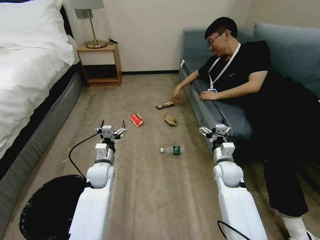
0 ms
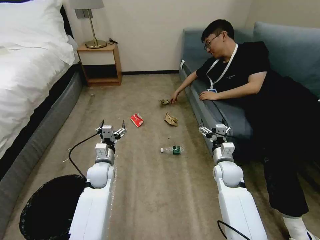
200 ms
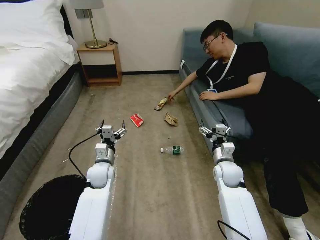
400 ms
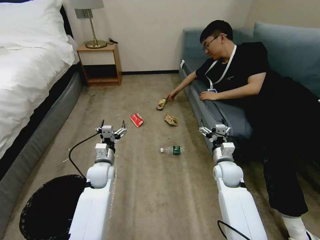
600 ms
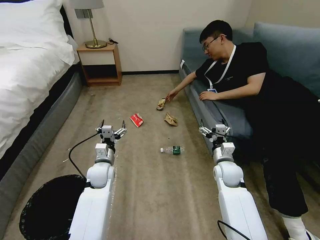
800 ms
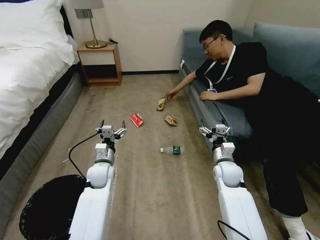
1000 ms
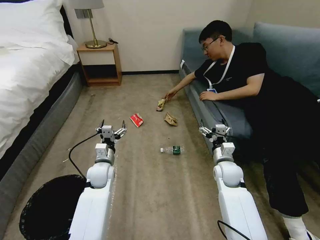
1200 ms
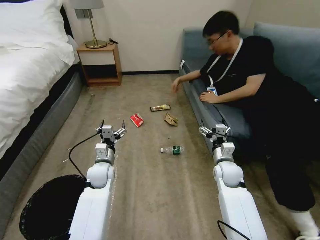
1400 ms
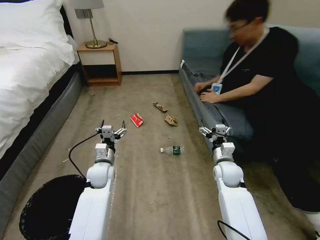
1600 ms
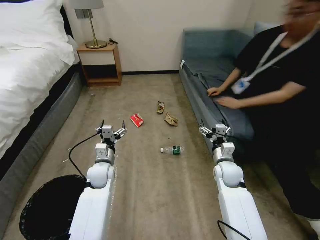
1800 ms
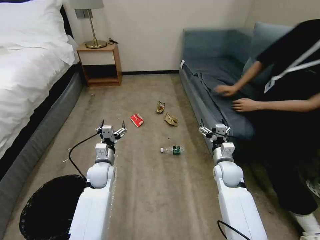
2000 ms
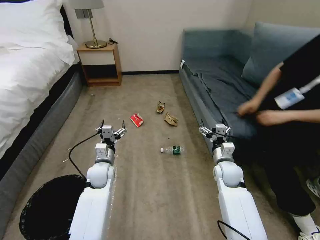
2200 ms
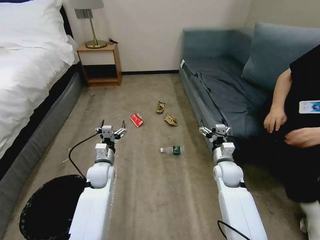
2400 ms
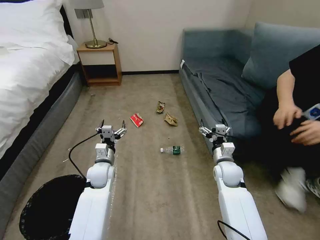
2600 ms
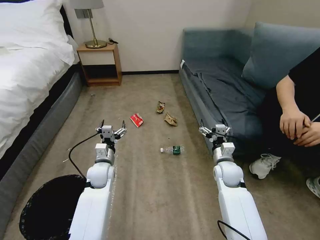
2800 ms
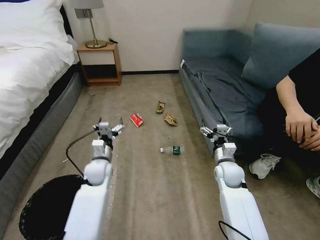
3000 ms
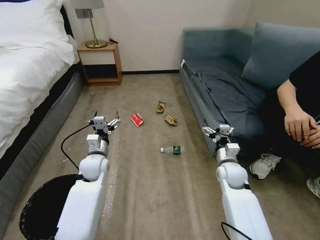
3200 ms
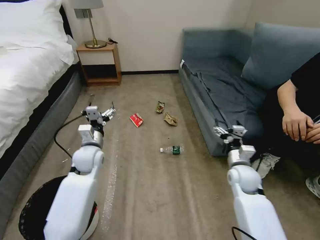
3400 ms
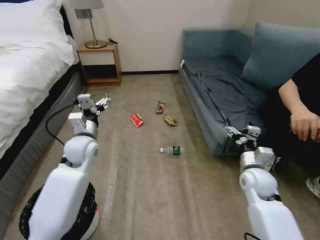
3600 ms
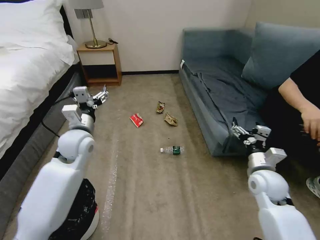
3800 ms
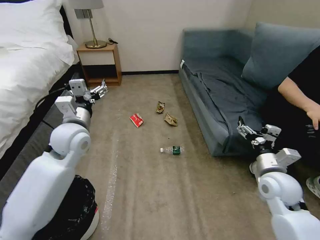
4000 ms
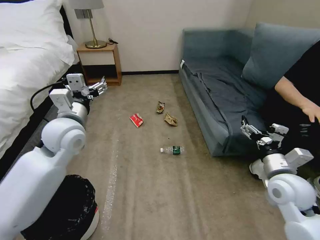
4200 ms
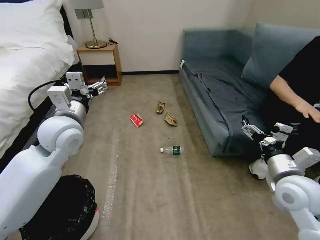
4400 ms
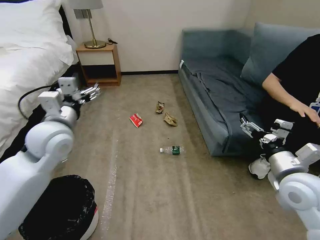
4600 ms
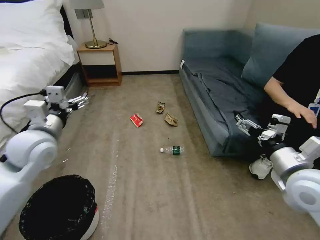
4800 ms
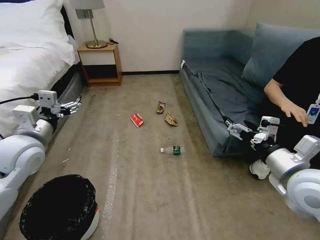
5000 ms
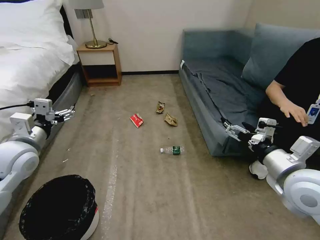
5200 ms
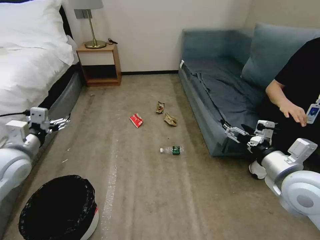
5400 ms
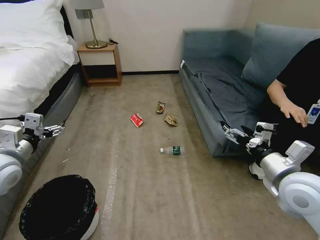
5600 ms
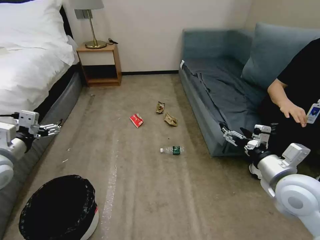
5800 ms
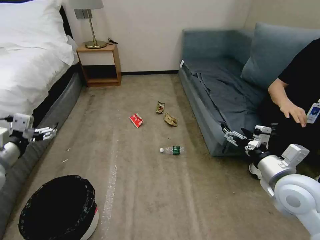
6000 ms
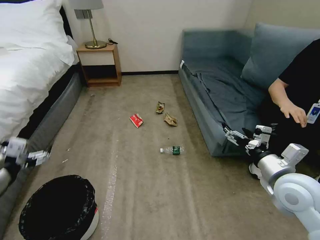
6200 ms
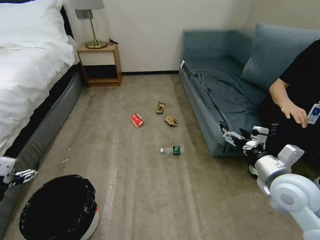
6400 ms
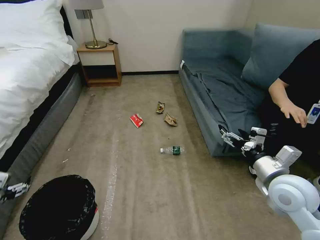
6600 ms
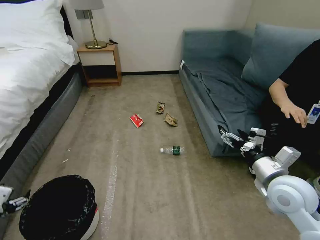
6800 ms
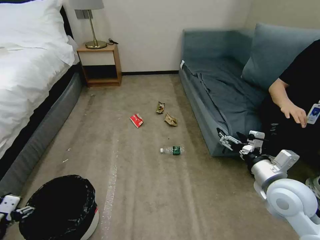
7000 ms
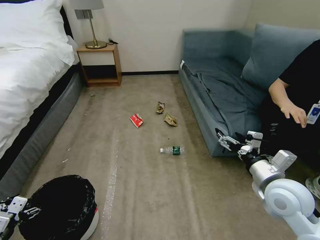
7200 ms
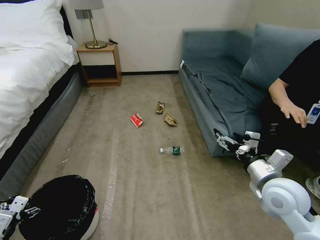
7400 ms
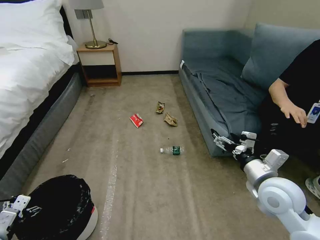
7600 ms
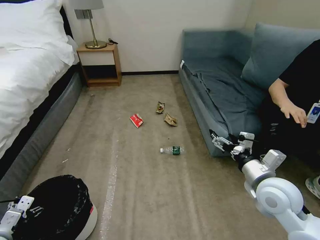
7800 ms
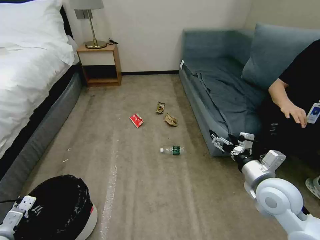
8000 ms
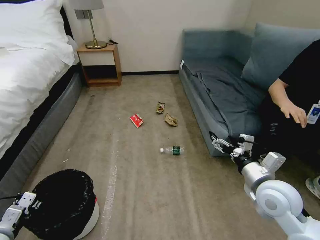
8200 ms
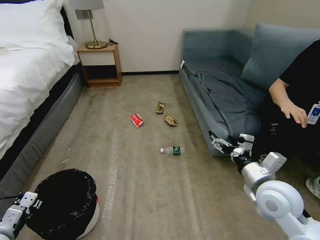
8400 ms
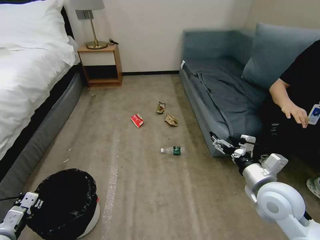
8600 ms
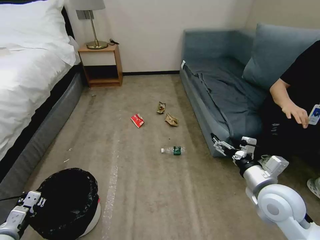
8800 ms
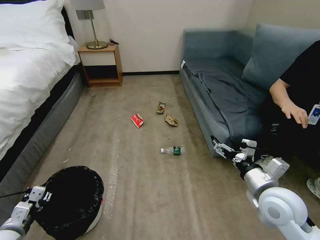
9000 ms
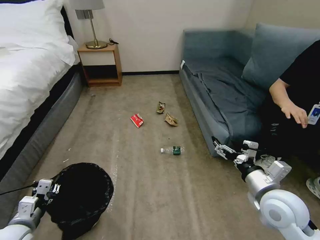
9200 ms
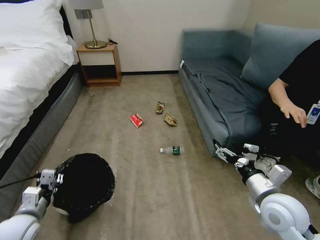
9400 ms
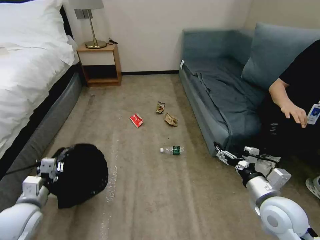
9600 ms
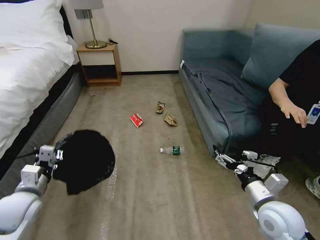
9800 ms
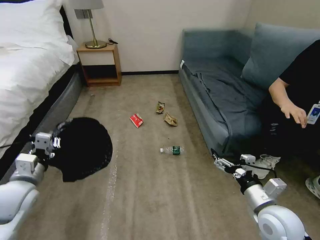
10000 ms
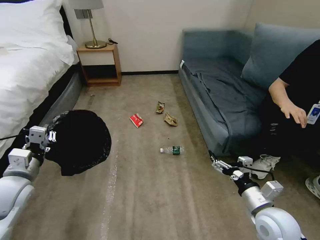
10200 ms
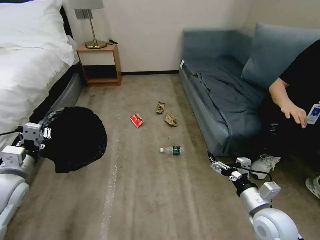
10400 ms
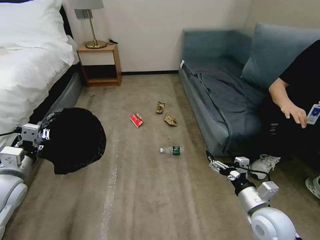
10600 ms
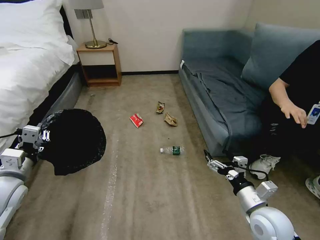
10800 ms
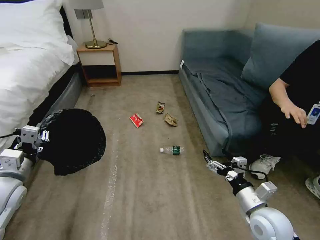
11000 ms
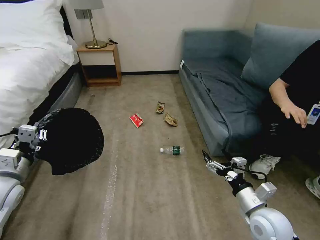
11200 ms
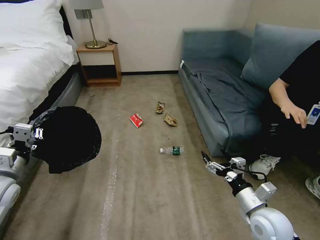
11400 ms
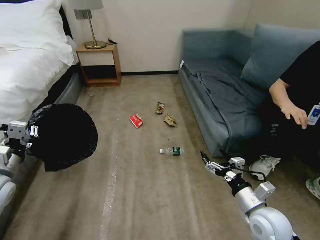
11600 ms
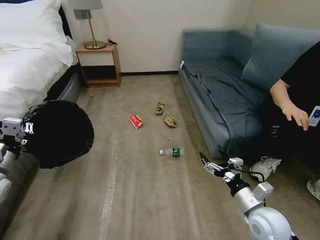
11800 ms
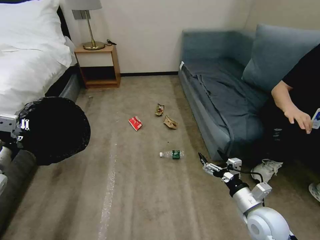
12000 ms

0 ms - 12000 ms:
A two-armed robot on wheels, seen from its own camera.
Task of the whole recording: Pick up the trash bin, then pick up the garbage on the floor and place it into the trash bin.
1600 ms - 3000 ms: Neither gripper changes place.
3000 ms - 4400 ms: The left gripper travels upward by about 25 cm, while the right gripper shifts approximately 20 cm upward, backward and to the right.
4400 ms - 6000 ms: The left gripper moves to the left and backward, about 20 cm.
6000 ms - 7600 ms: The left gripper is displaced downward and backward by about 25 cm.
7600 ms - 9000 ms: The left gripper closes up.
9000 ms - 10400 ms: The left gripper is displaced upward and forward by approximately 20 cm. Meanwhile the right gripper goes some 5 cm downward.
10400 ms - 12000 ms: The left gripper goes approximately 5 cm to the left.

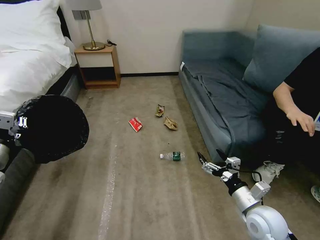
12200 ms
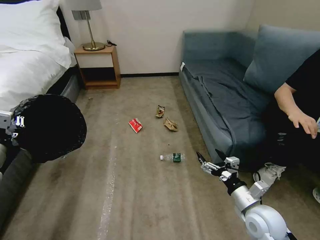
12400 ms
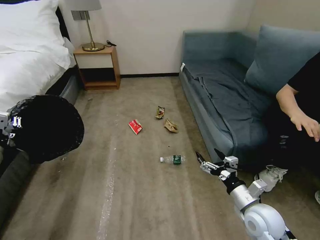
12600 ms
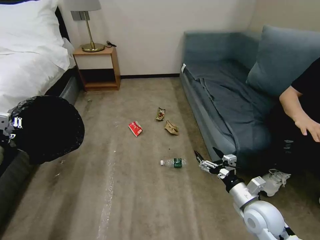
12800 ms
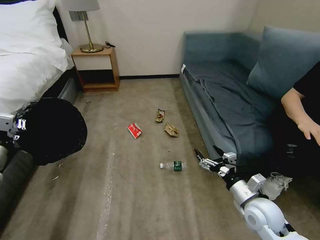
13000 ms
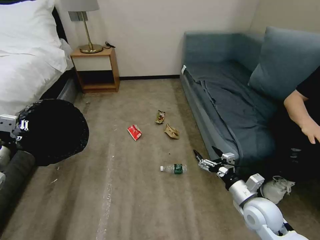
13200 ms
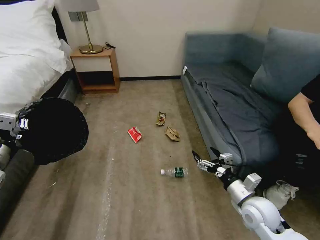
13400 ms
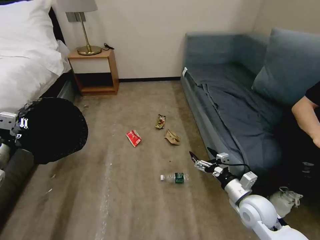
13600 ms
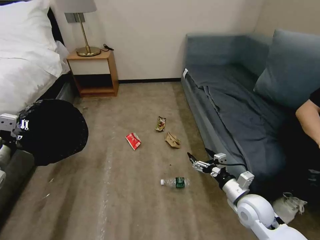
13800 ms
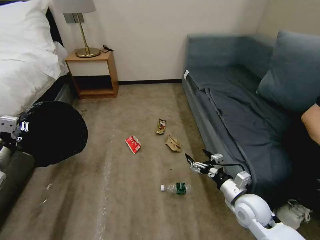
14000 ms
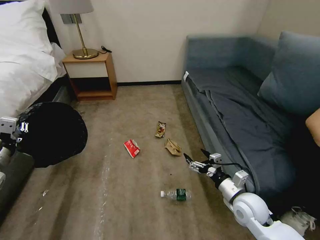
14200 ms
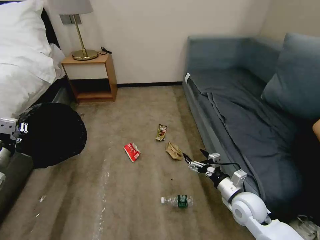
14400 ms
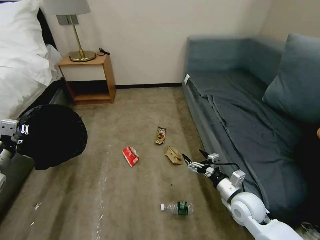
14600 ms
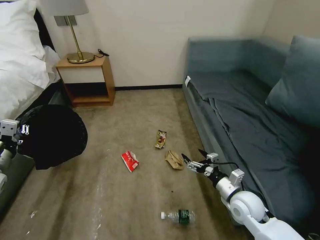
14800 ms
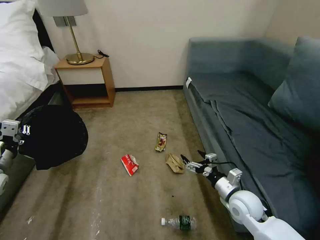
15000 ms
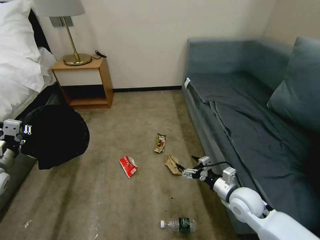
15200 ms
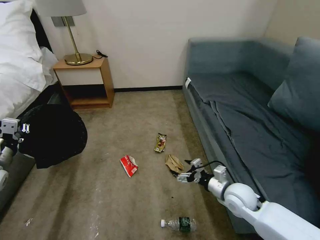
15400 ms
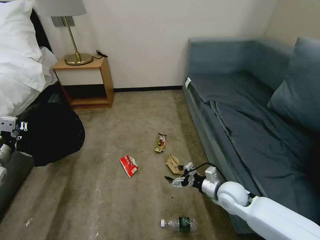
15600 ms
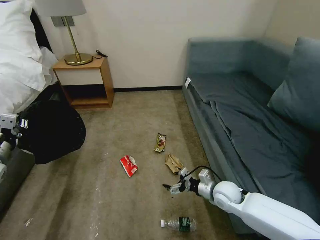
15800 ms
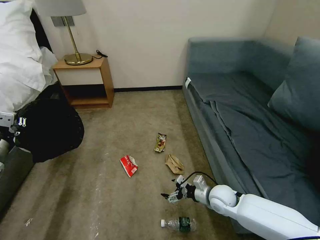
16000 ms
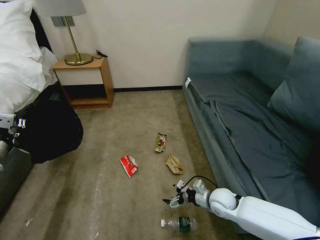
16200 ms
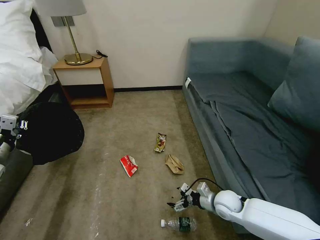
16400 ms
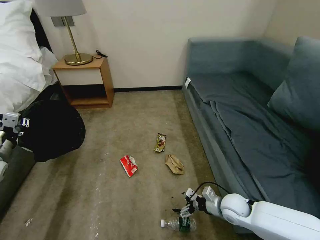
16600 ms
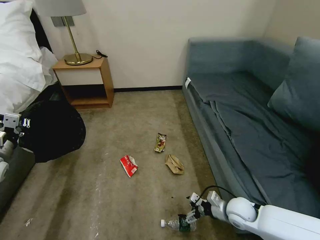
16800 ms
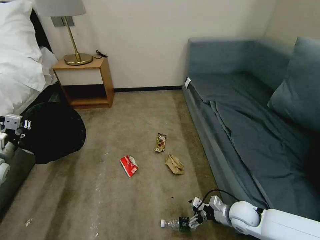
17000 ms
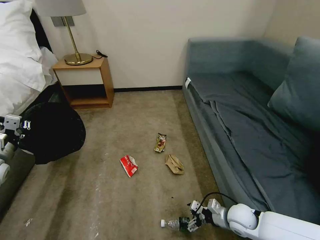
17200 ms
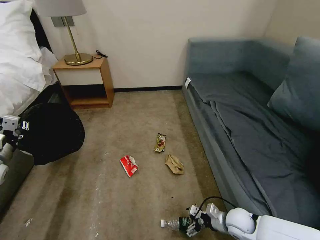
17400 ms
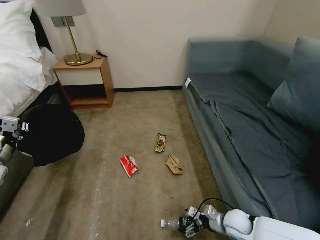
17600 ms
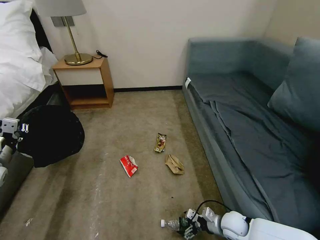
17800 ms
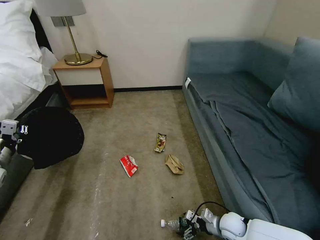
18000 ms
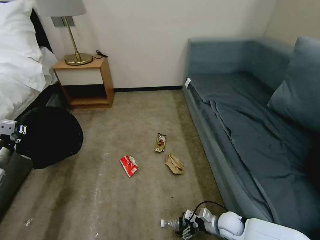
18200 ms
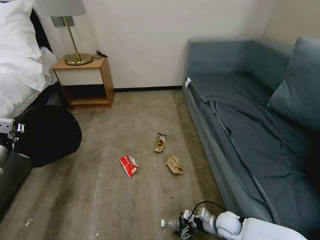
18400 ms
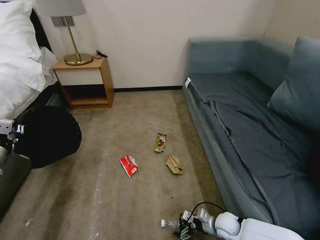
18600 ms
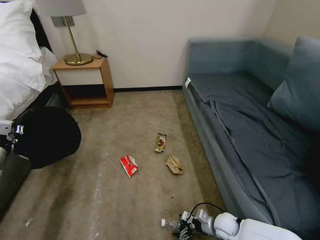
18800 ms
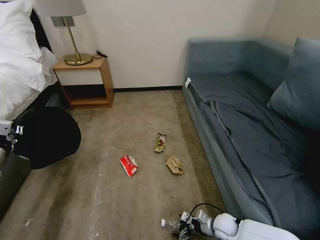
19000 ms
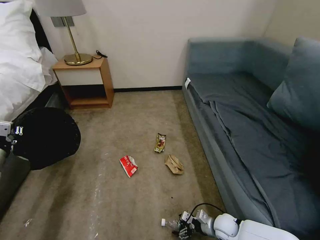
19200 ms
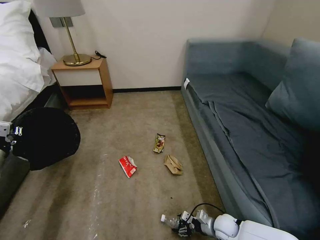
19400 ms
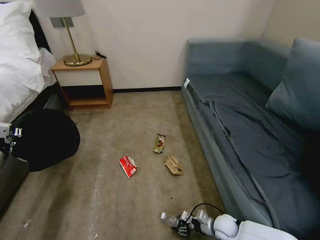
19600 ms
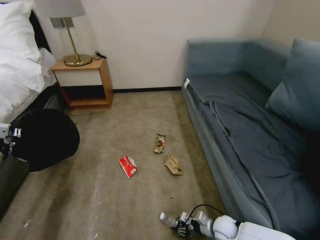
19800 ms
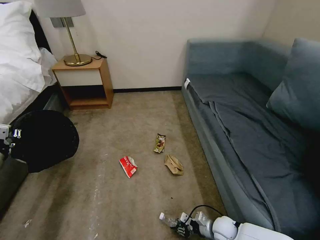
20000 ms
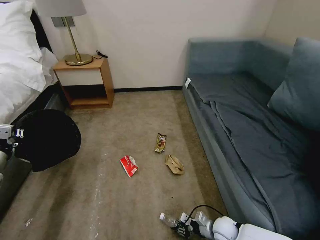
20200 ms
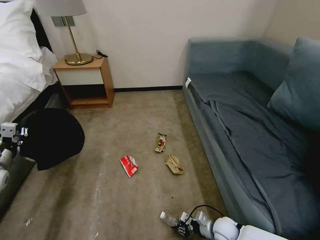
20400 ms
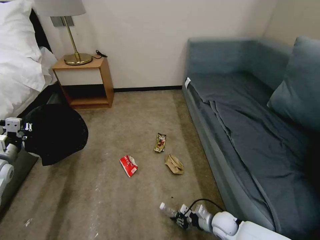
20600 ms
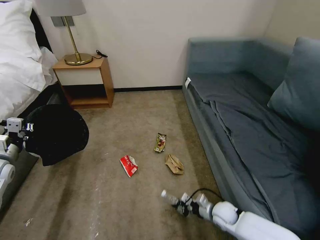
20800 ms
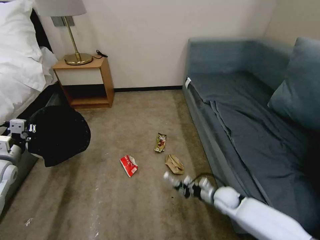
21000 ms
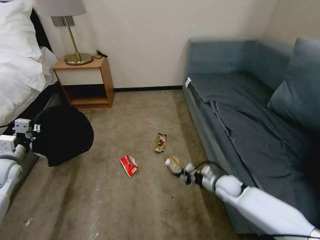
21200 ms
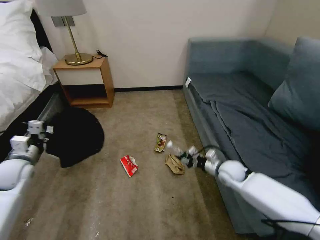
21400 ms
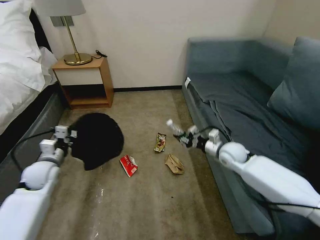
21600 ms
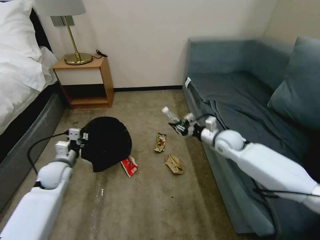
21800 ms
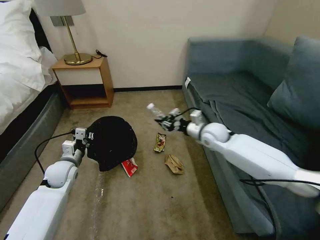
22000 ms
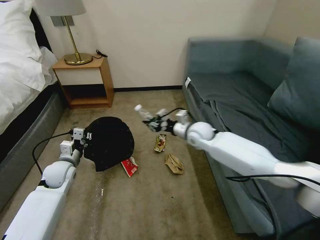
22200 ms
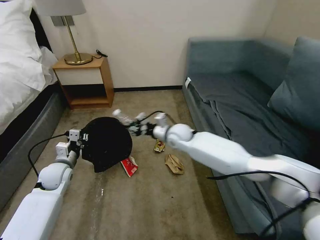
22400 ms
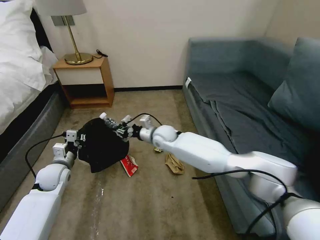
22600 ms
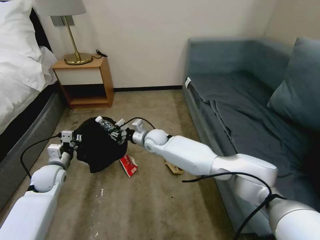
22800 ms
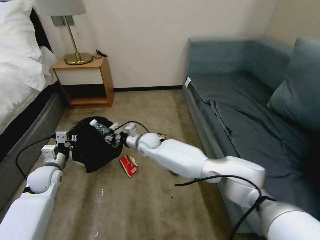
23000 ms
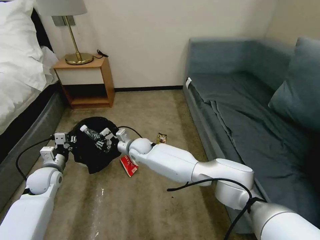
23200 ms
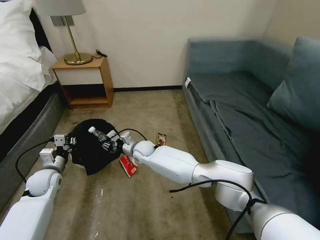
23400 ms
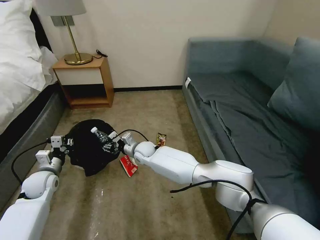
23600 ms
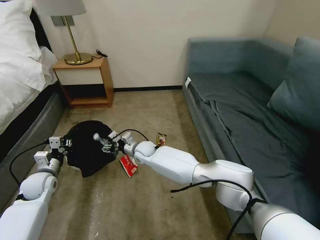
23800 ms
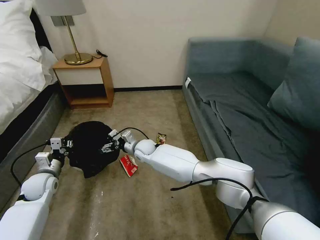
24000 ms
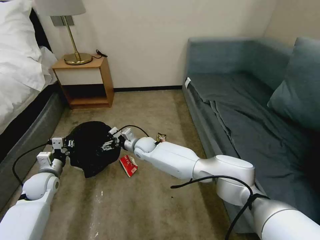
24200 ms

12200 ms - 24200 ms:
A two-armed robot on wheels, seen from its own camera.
Task of the whole recording: Pick up the trash bin, then pick up the garbage on the floor and place it into the trash bin.
15200 ms - 16600 ms: The right gripper is displaced downward by approximately 10 cm.
16600 ms - 18200 ms: The right gripper goes approximately 10 cm downward.
18200 ms - 19800 ms: The right gripper closes.
19800 ms - 21200 ms: The right gripper shifts about 20 cm forward and upward; the left gripper is displaced to the right by about 5 cm.
21200 ms - 22600 ms: The right gripper heads to the left, upward and forward, covering roughly 35 cm. Meanwhile the left gripper moves to the right and downward, approximately 15 cm.
22600 ms - 24200 ms: The left gripper shifts by roughly 5 cm. Meanwhile the right gripper heads to the left and downward, covering roughly 10 cm, and opens its fingers.
